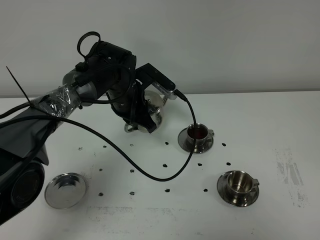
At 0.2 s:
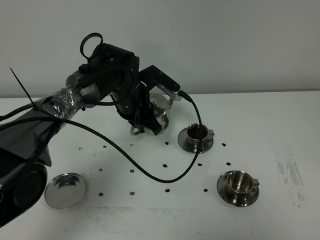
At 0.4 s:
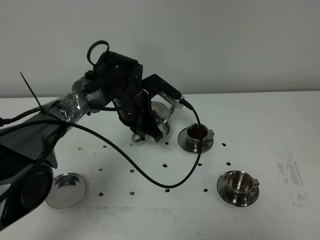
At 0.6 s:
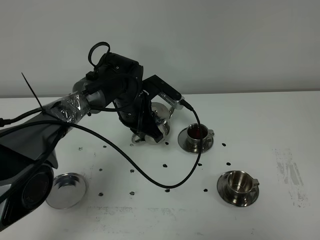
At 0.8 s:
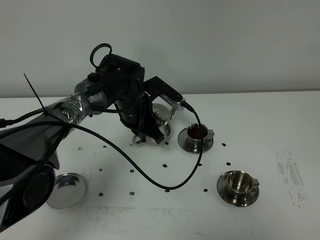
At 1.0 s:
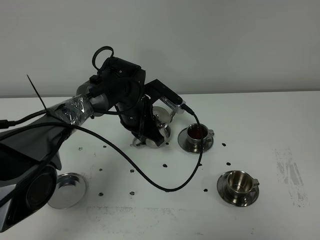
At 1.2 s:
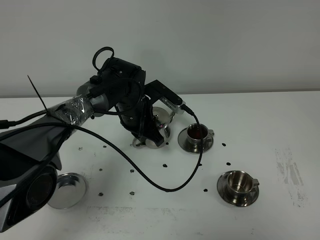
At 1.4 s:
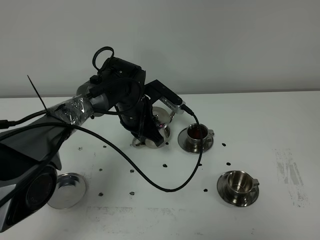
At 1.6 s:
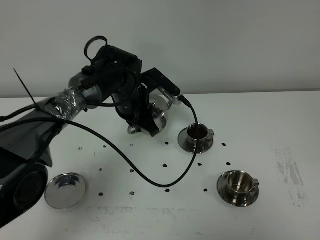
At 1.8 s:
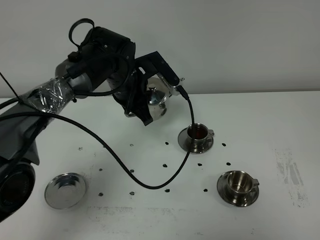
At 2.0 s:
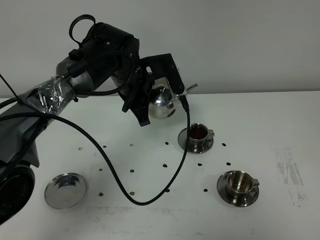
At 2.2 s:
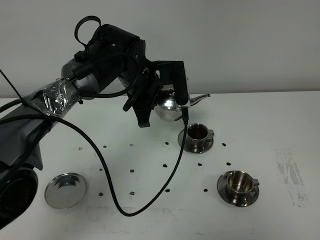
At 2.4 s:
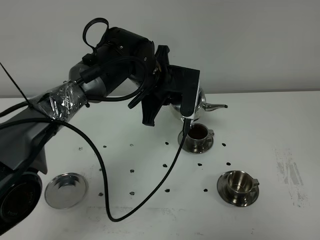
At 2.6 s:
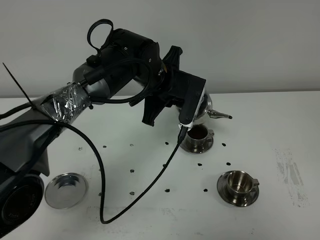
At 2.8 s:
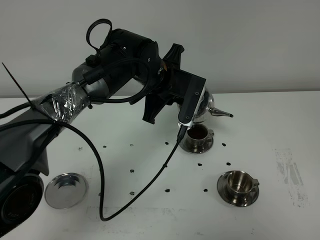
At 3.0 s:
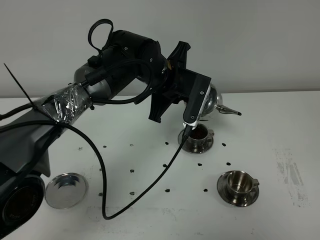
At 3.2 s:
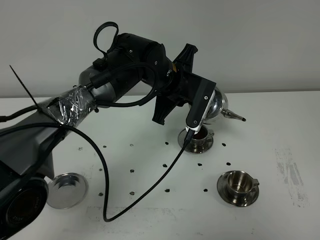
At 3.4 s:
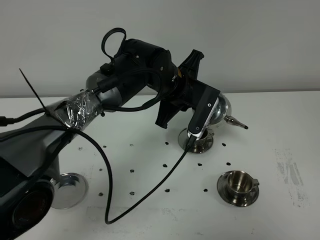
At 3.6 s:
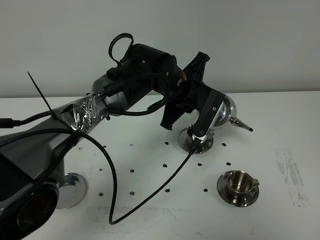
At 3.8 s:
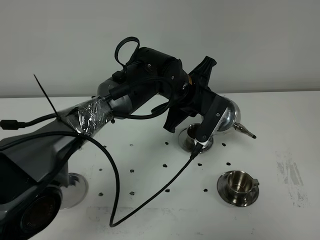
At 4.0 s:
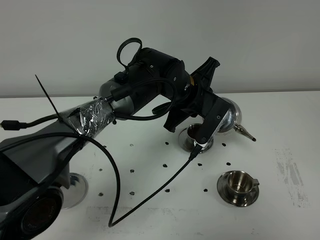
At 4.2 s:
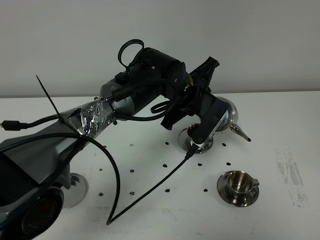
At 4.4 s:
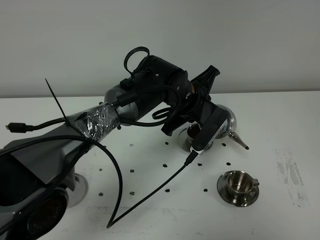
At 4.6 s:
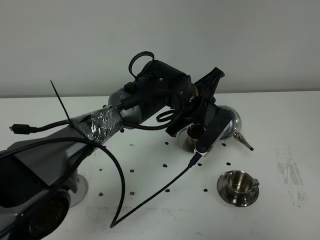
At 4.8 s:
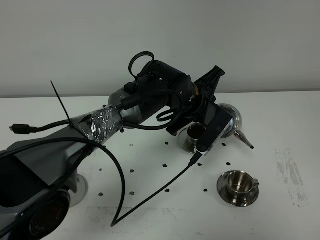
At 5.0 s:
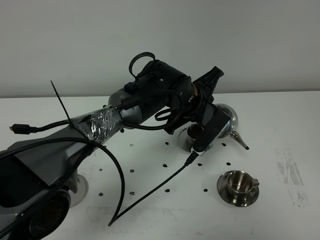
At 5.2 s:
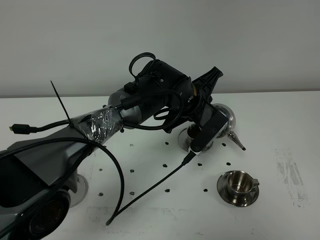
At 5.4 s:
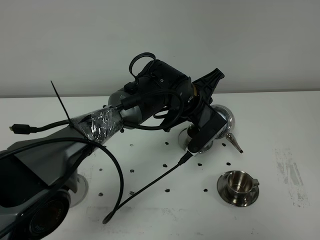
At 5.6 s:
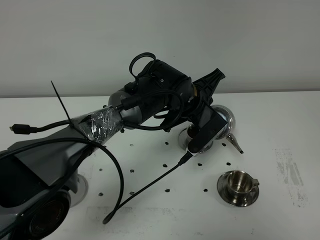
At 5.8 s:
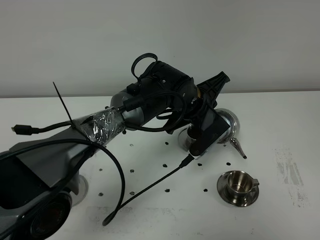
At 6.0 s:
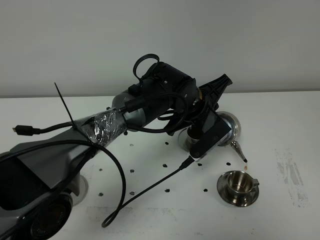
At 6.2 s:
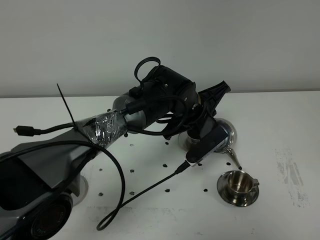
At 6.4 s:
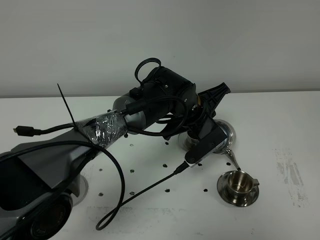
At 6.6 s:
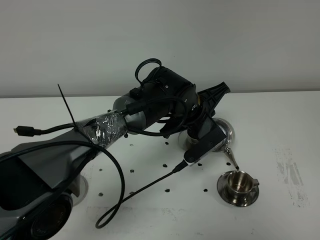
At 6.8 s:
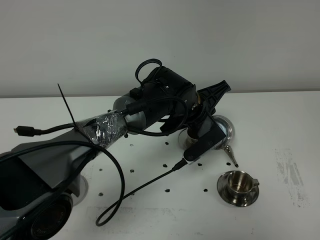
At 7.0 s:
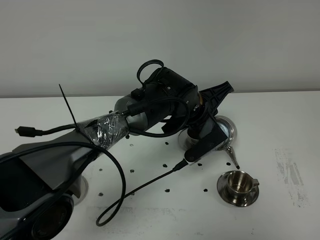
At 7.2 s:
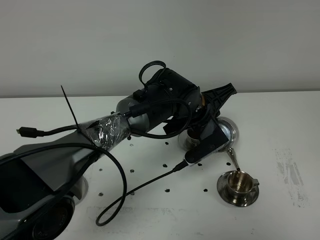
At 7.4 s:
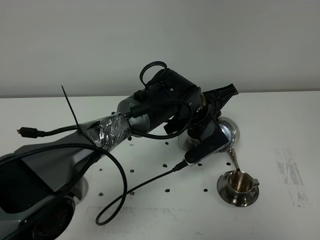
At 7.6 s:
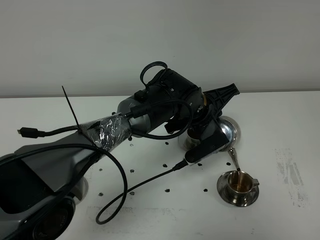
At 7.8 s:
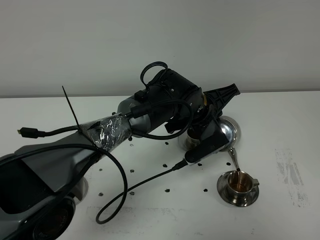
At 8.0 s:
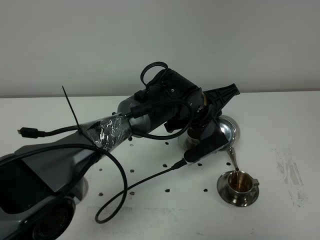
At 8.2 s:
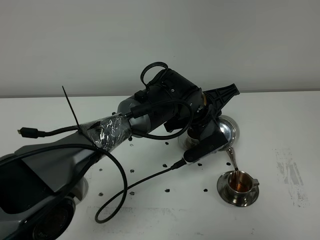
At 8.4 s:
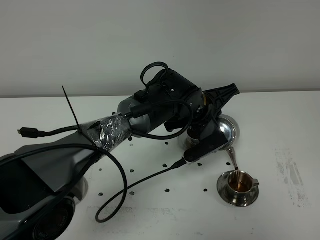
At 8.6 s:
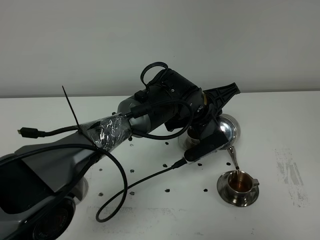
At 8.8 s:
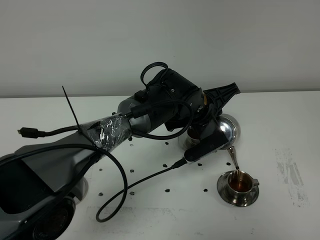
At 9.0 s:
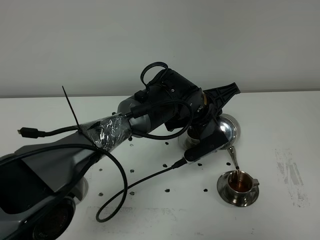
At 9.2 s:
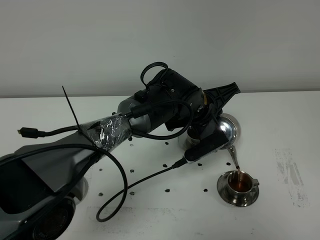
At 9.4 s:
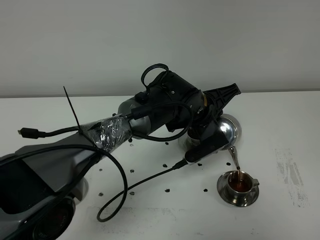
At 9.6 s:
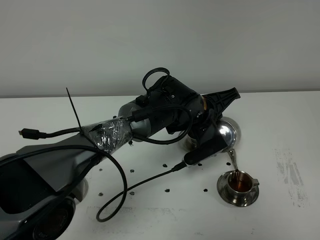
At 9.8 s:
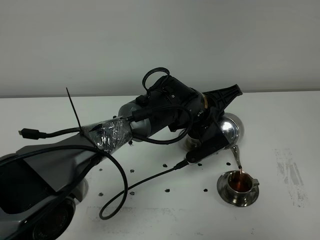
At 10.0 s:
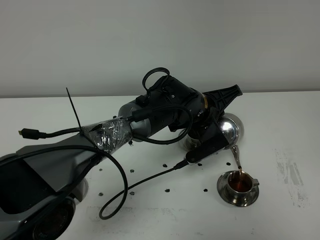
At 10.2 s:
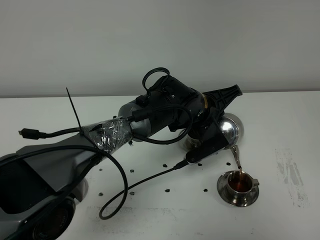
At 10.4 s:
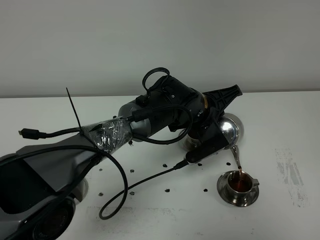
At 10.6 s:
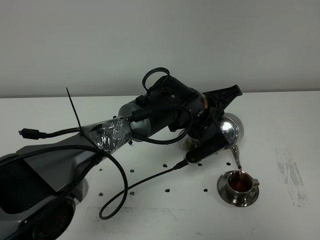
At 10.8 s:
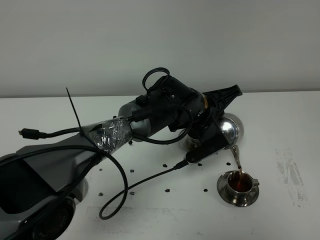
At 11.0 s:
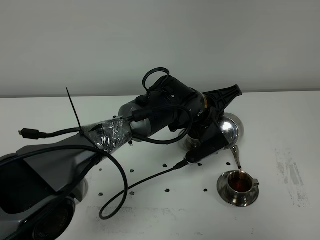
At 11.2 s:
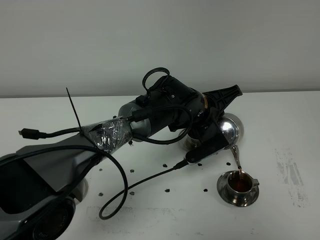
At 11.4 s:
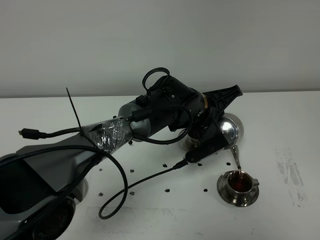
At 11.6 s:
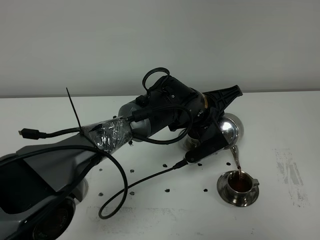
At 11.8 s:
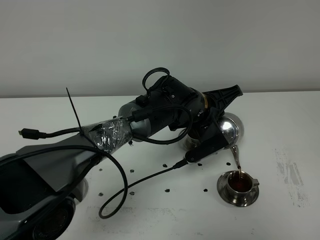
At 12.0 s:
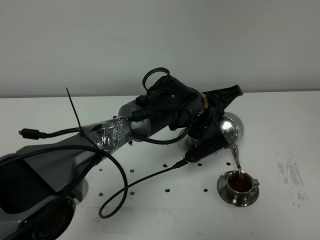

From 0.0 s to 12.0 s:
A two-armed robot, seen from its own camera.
Task of the whole recording: grasp the stainless steel teapot and pour the tea into the two stainless steel teacups one by one, put the stainless steel teapot back in its original place.
From 0.0 s to 1.6 s: The grippers stay close to where they were, moving slightly.
From 1.6 s to 3.0 s: The left gripper goes approximately 10 cm to the right and upward.
From 3.0 s to 4.4 s: The left gripper moves approximately 5 cm.
From 4.4 s to 6.0 s: The grippers move only a little.
From 6.0 s to 7.6 s: The grippers make only small movements.
From 7.6 s to 9.0 s: Neither gripper changes place.
From 9.0 s to 12.0 s: Neither gripper changes place.

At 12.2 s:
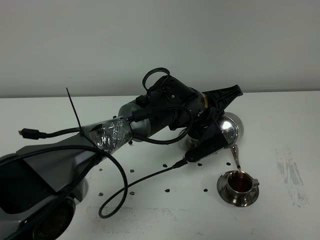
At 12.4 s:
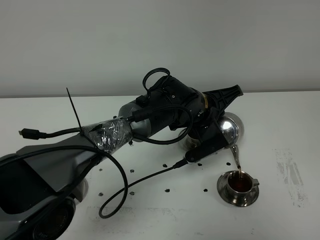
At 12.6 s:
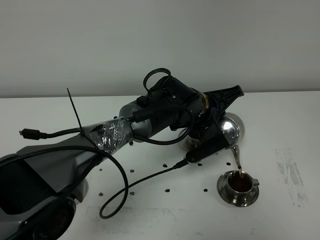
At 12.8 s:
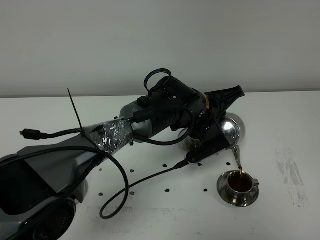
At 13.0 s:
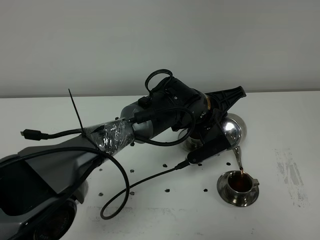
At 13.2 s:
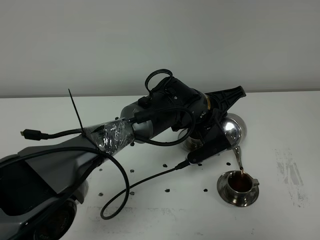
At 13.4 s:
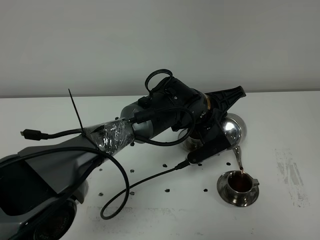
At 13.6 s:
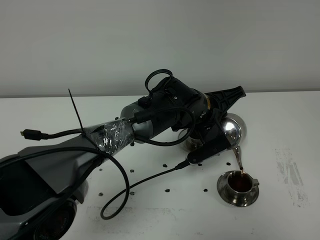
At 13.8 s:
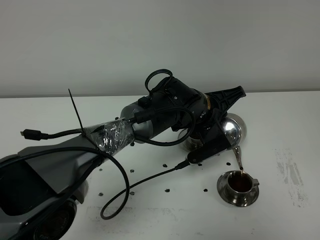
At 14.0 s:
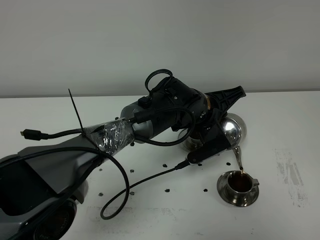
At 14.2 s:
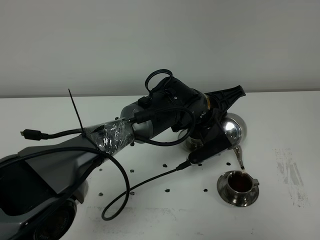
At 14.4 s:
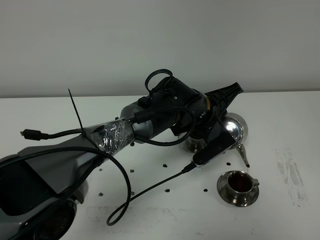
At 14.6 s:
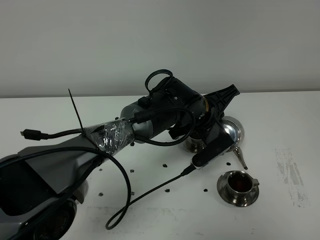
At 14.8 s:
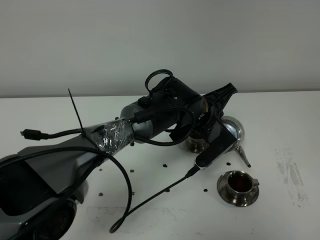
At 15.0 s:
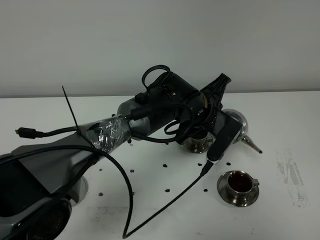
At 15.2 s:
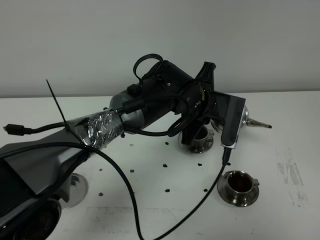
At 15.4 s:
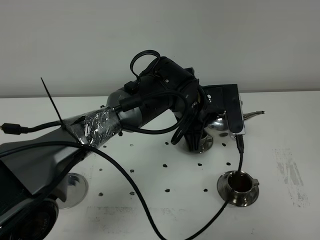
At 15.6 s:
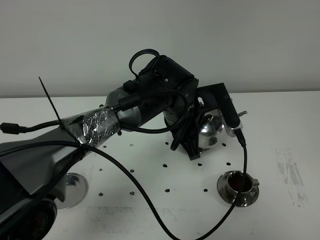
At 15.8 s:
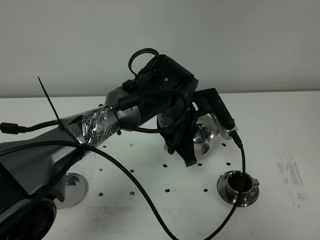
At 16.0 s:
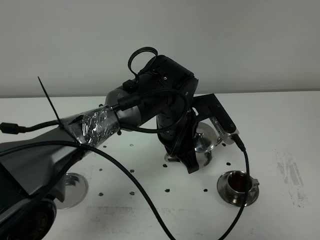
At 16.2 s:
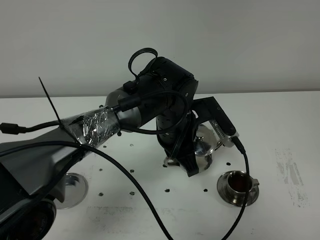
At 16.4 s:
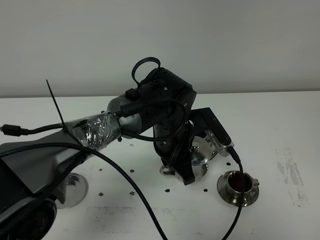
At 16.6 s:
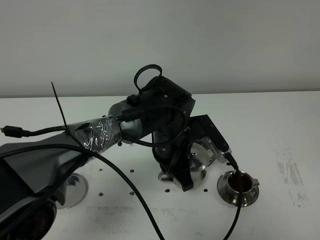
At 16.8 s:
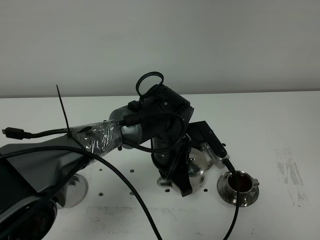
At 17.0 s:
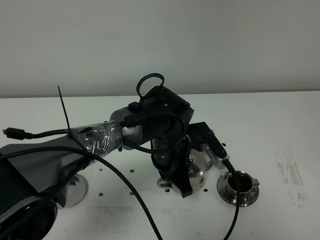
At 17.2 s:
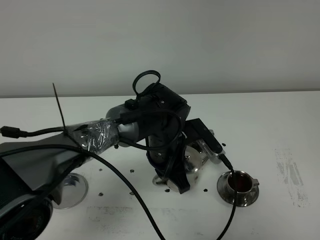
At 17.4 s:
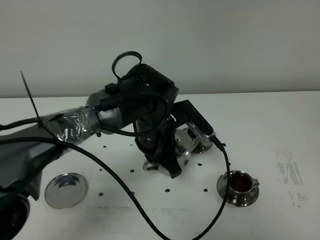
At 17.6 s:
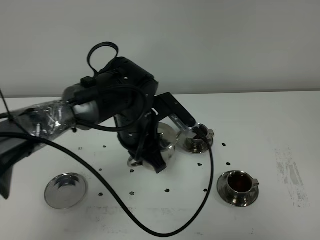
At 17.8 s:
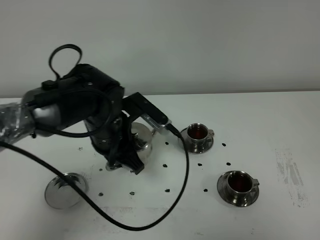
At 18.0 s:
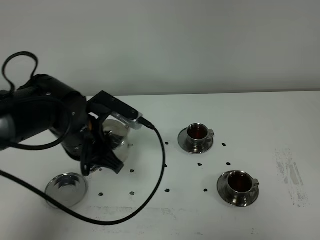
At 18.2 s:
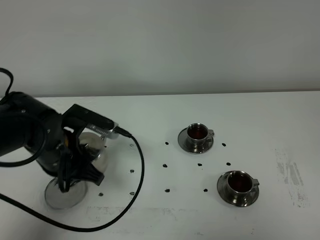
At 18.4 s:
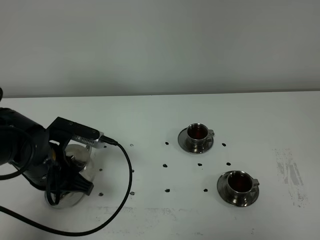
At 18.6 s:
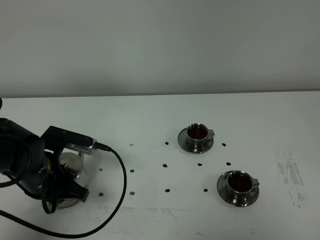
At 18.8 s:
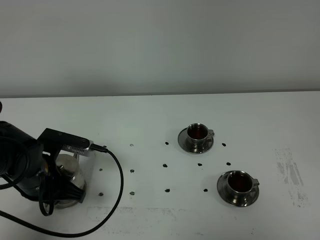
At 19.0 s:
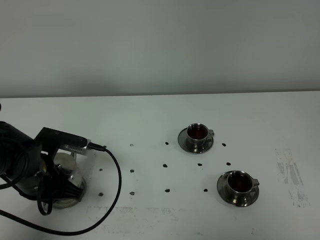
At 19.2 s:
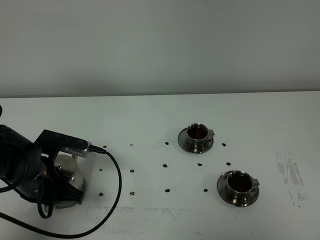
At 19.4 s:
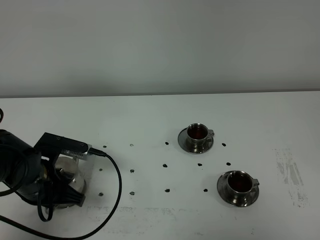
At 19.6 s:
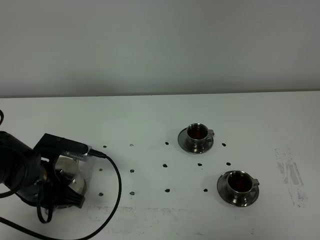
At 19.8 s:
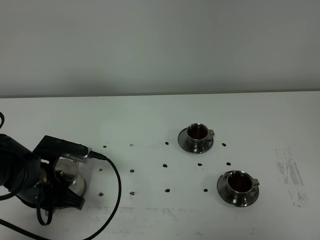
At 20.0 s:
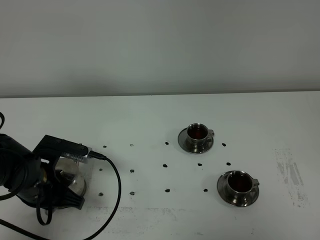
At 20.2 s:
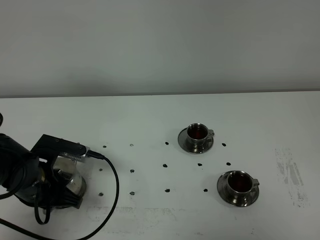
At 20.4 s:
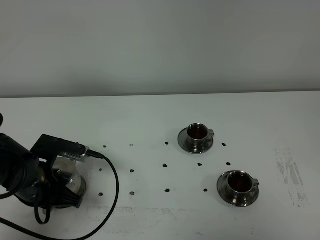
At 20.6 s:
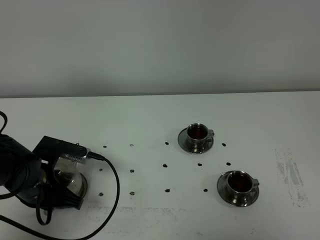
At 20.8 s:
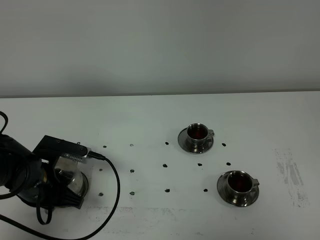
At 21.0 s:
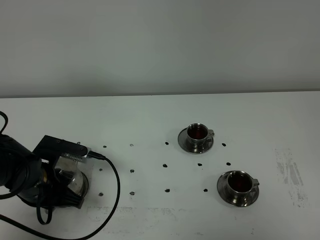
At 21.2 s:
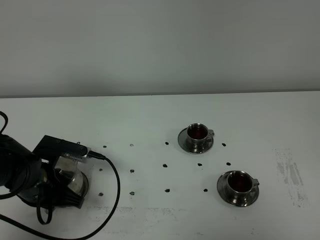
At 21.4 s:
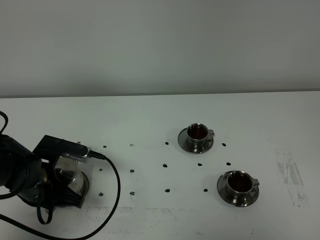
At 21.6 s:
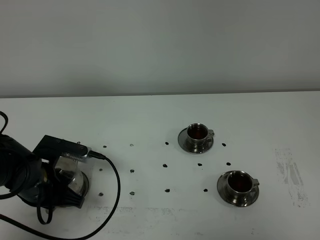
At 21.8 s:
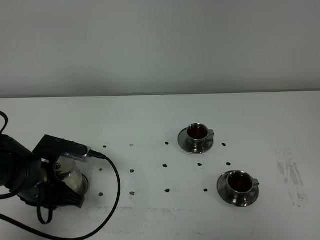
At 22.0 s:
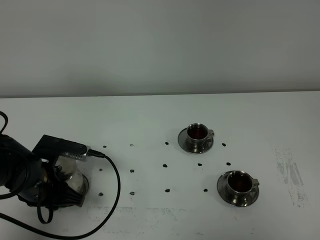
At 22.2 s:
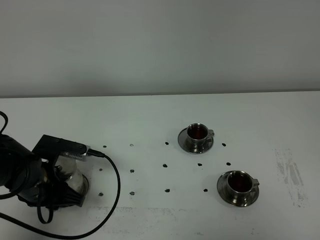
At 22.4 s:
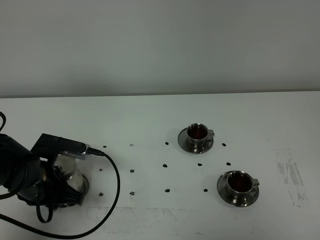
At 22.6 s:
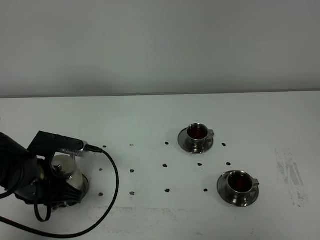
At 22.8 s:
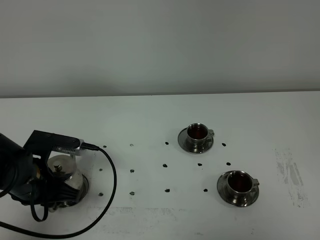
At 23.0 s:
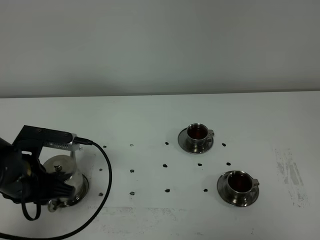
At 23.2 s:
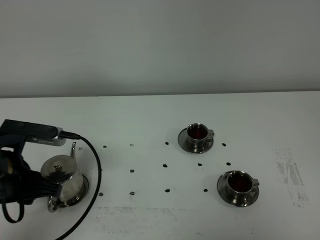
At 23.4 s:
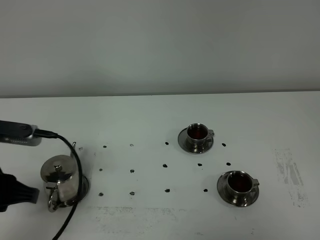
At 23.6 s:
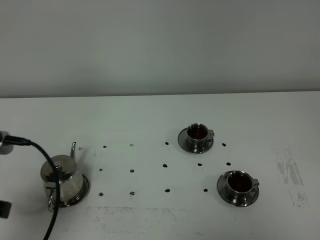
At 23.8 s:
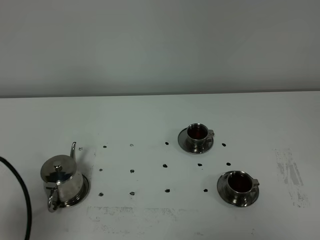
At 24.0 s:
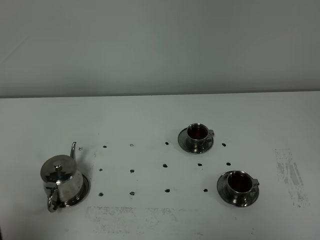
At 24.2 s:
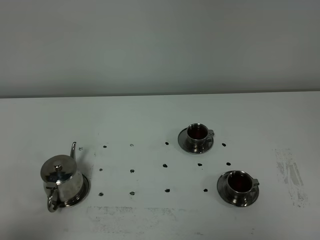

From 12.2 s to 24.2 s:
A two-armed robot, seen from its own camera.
Task of the whole recording: grasp the stainless steel teapot and pour the tea into the two stainless steel teacups one by one, put the stainless steel teapot back in its original place.
Step, from 12.2 s to 14.4 s: Pour tea into the teacup with the left gripper.
From 12.2 s to 13.8 s: The two grippers keep their place.
From 15.2 s to 16.6 s: The left gripper moves downward, roughly 5 cm.
From 16.6 s to 18.2 s: The left gripper heads to the left, covering roughly 20 cm.
From 18.2 s to 19.8 s: The left gripper shifts by approximately 5 cm.
From 19.8 s to 22.6 s: Both grippers stay put.
From 22.6 s to 24.2 s: The left gripper travels backward and upward by approximately 30 cm, and closes its fingers.
